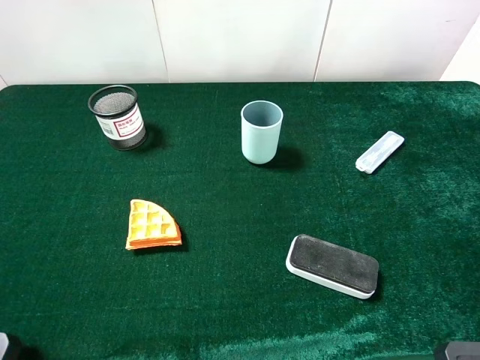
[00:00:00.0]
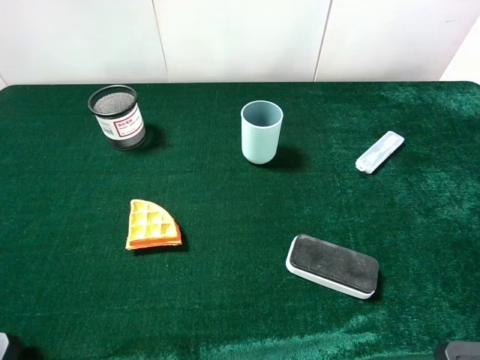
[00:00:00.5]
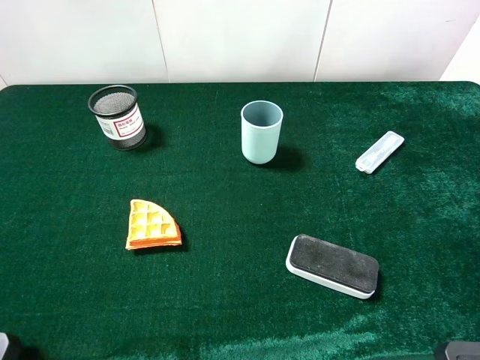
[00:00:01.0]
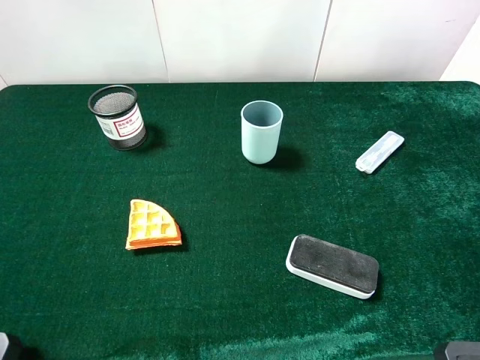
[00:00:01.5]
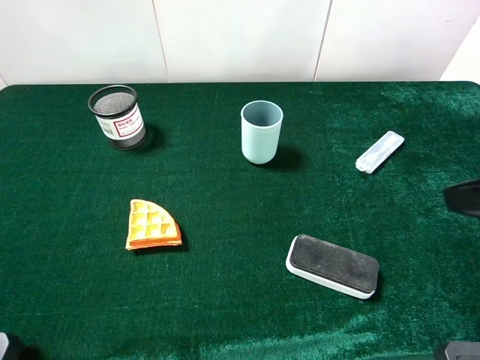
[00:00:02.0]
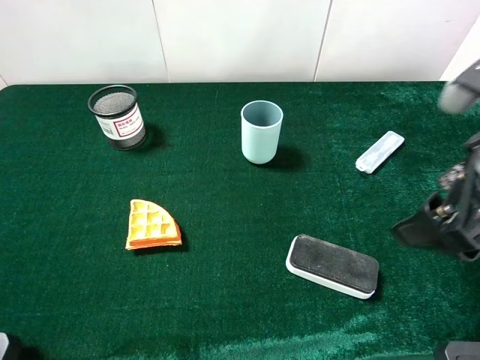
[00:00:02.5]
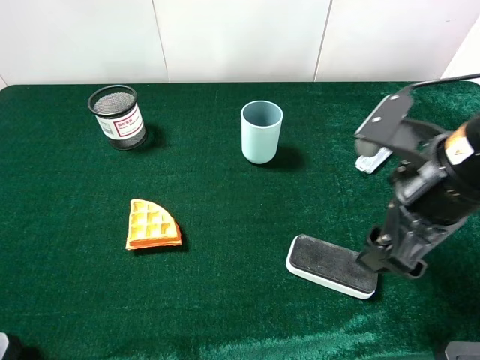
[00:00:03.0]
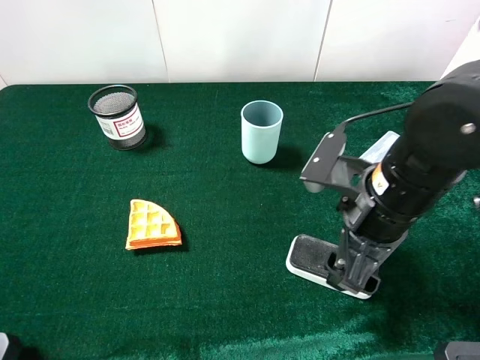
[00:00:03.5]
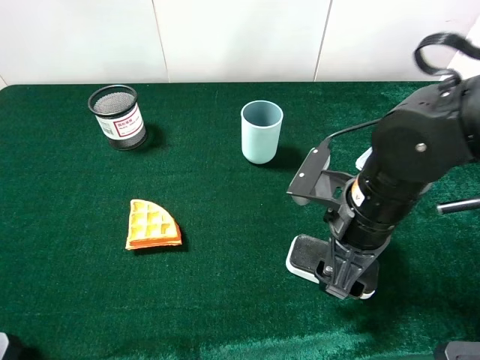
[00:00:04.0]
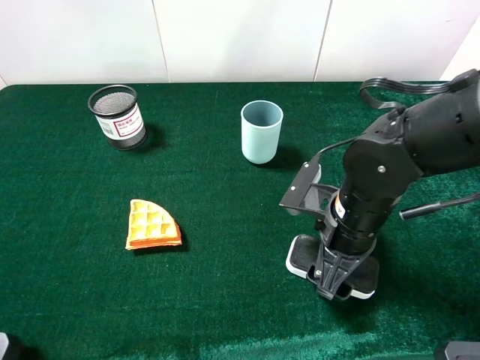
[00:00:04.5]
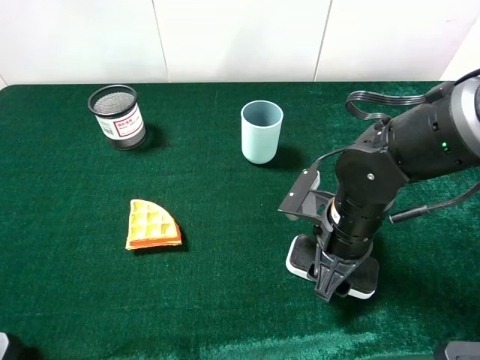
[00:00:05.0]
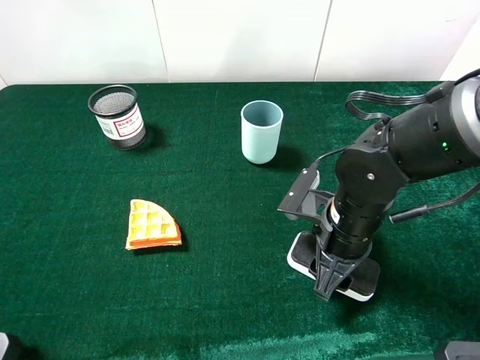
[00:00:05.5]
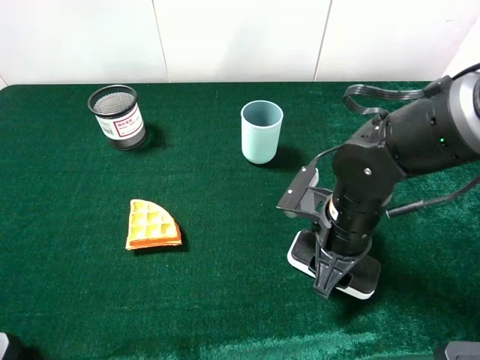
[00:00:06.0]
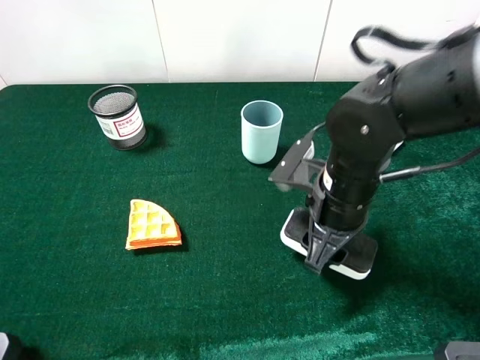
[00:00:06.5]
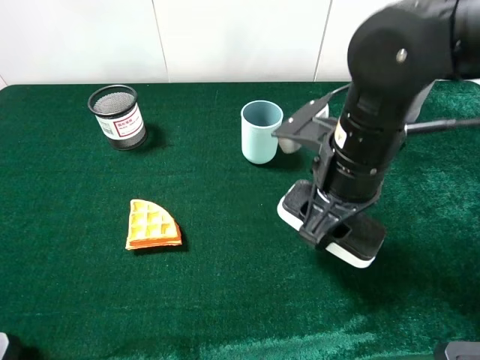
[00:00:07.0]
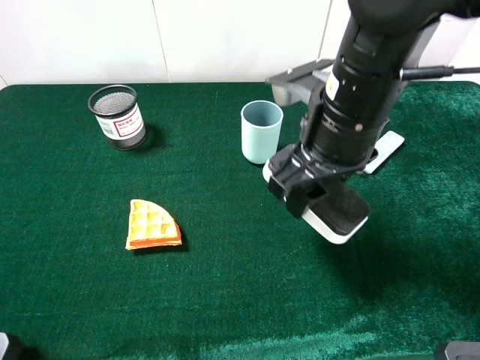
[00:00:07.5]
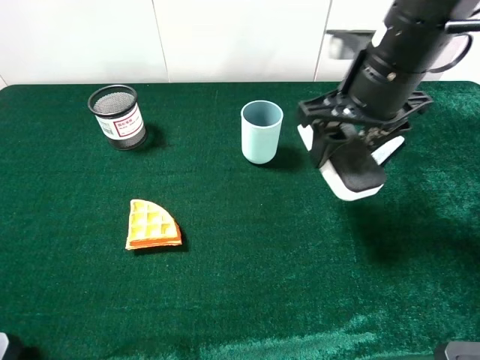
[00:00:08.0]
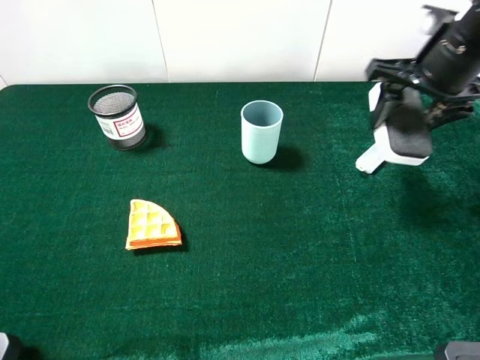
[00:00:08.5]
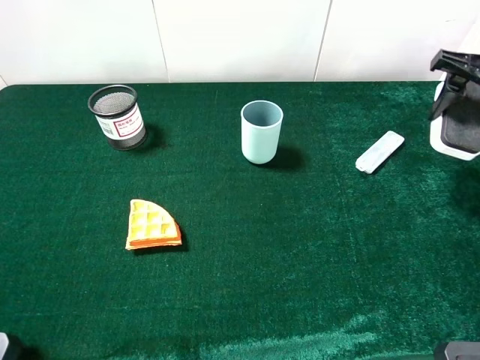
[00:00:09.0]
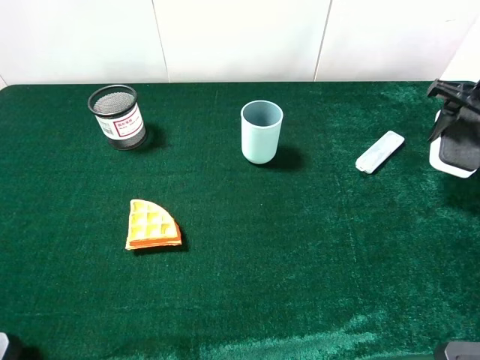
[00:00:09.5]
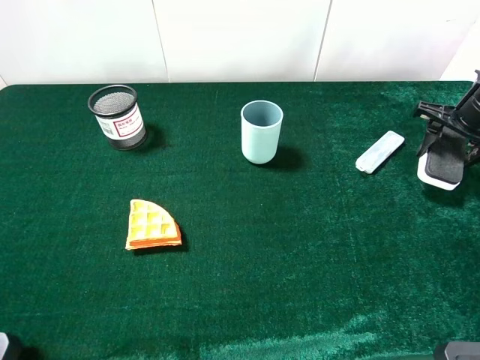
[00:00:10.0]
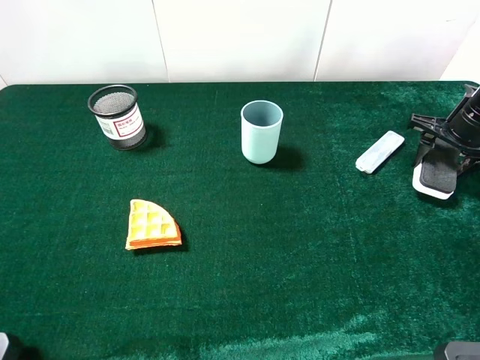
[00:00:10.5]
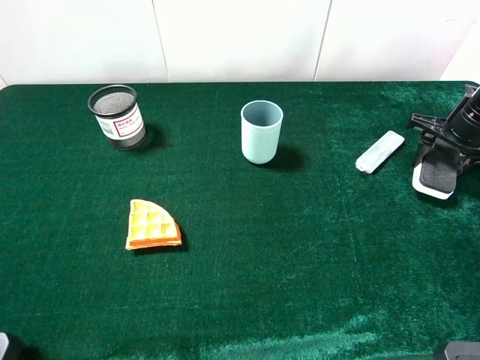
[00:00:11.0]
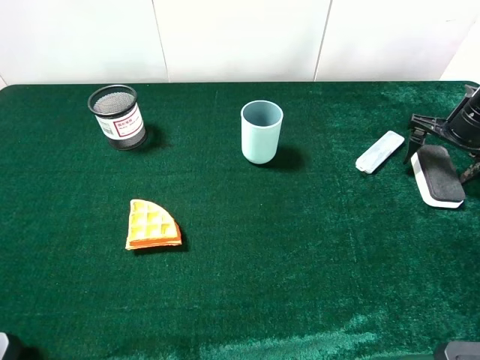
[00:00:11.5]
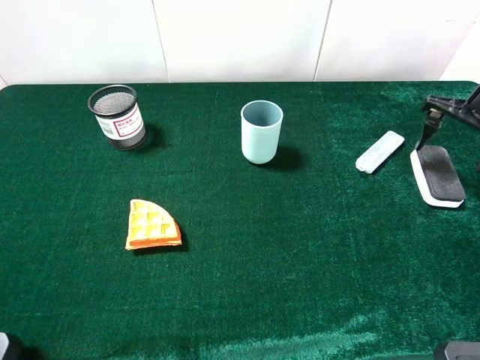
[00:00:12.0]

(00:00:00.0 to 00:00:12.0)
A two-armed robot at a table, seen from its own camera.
Task of the whole recording: the gripper move the object.
Step, 00:00:00.0 - 00:00:06.0: Grasp the white blackboard earser with the right gripper.
Step, 00:00:06.5 - 00:00:12.0: Place the white blackboard earser on the table with the right gripper.
00:00:02.0 - 00:00:04.0: The right gripper moves downward and to the left, some 20 cm.
00:00:04.0 - 00:00:06.0: The right gripper closes.
00:00:06.0 - 00:00:08.0: The right gripper shifts about 15 cm upward and forward.
00:00:08.0 - 00:00:10.0: The right gripper goes roughly 25 cm to the right, downward and forward.
00:00:10.0 - 00:00:12.0: The right gripper opens.

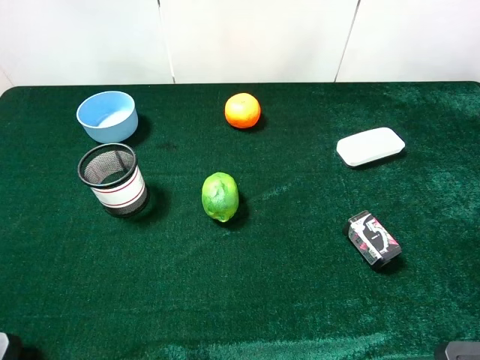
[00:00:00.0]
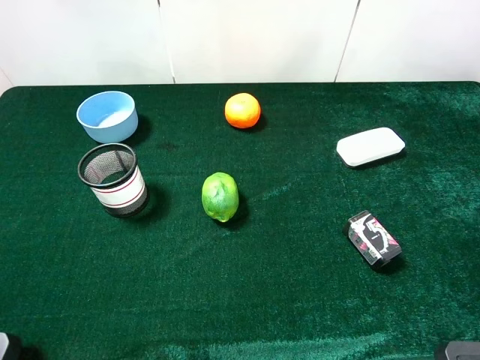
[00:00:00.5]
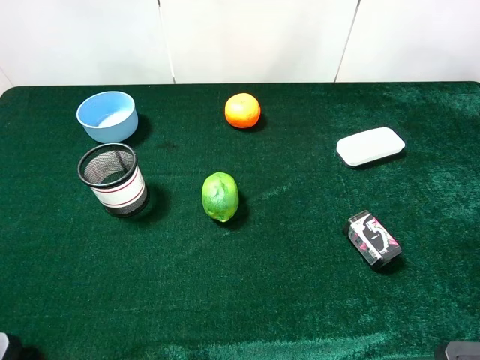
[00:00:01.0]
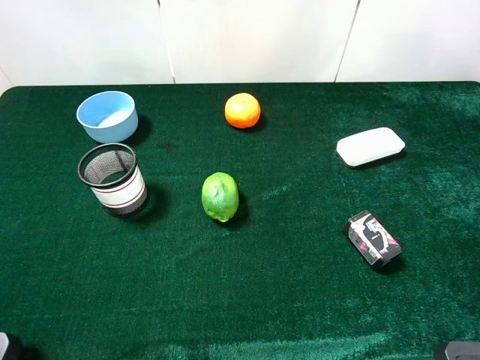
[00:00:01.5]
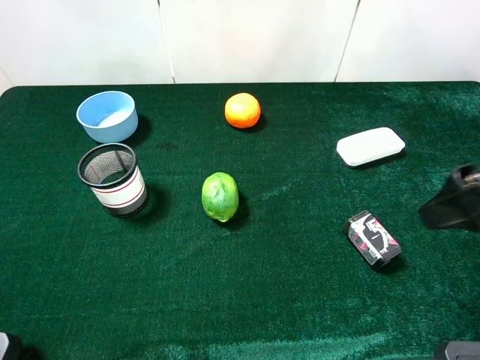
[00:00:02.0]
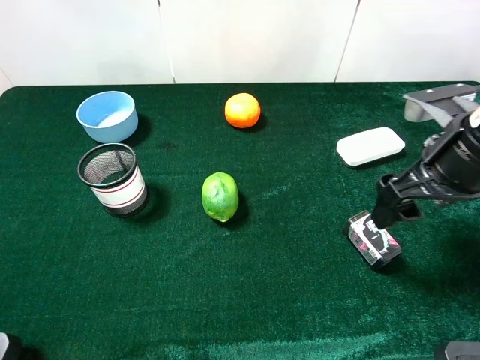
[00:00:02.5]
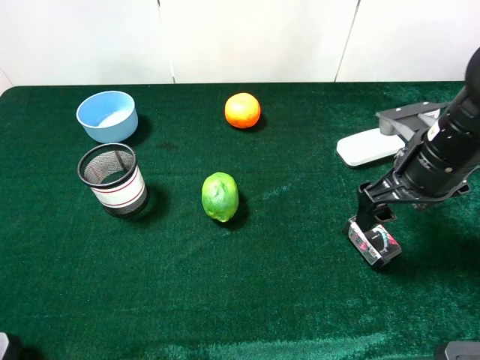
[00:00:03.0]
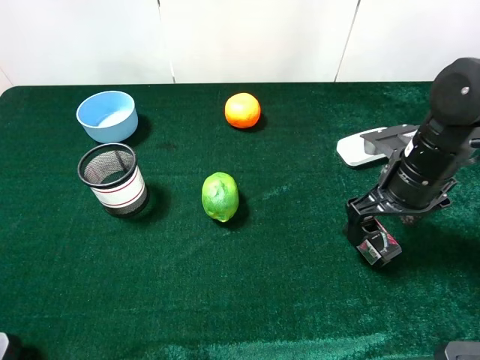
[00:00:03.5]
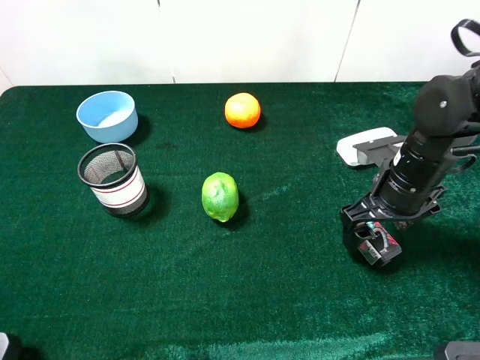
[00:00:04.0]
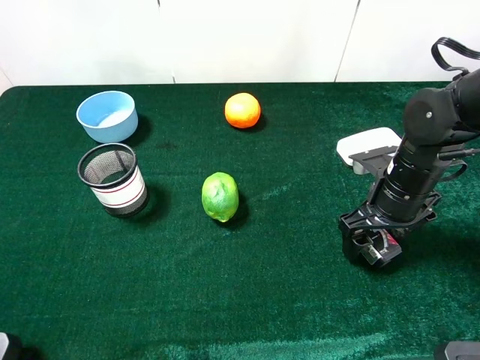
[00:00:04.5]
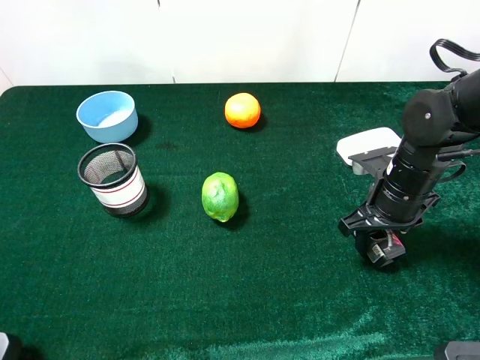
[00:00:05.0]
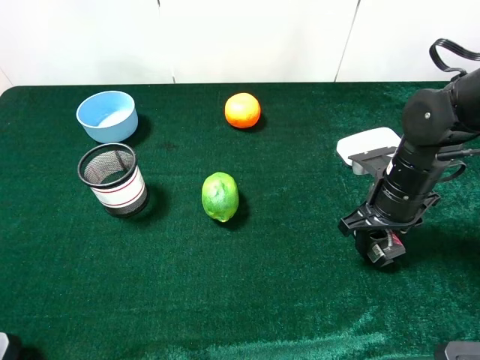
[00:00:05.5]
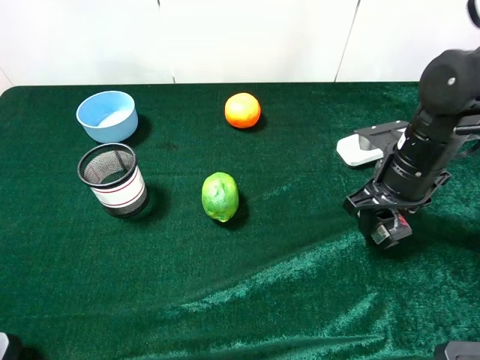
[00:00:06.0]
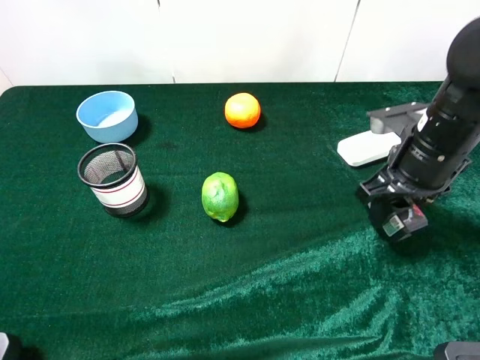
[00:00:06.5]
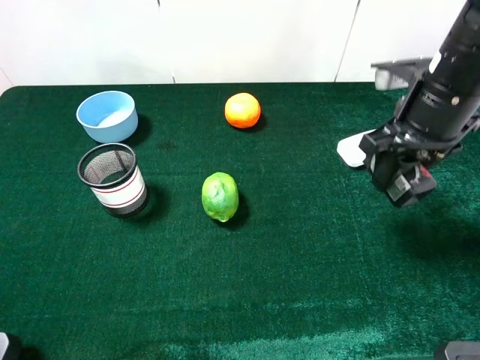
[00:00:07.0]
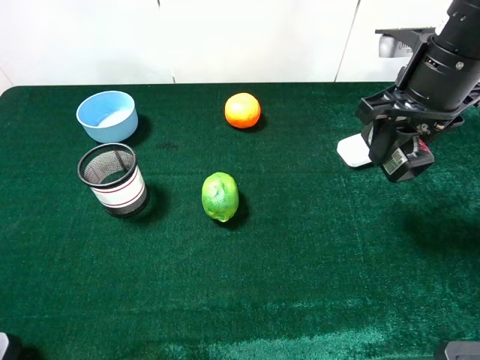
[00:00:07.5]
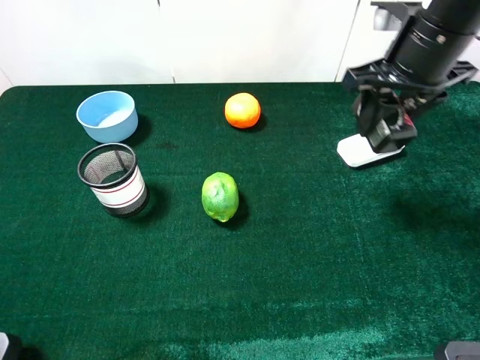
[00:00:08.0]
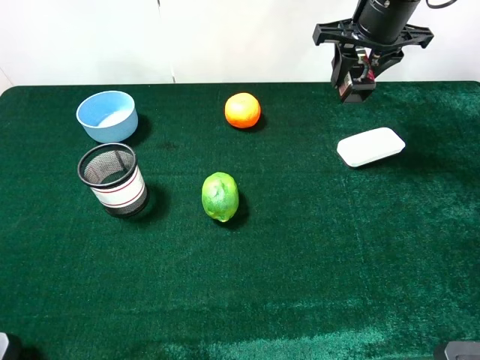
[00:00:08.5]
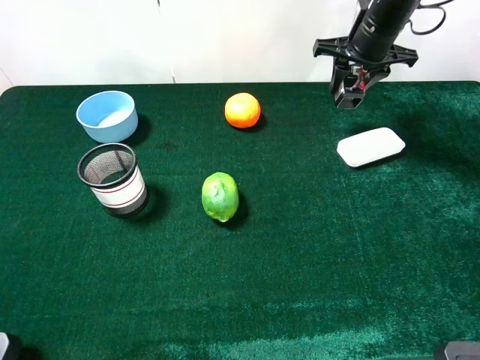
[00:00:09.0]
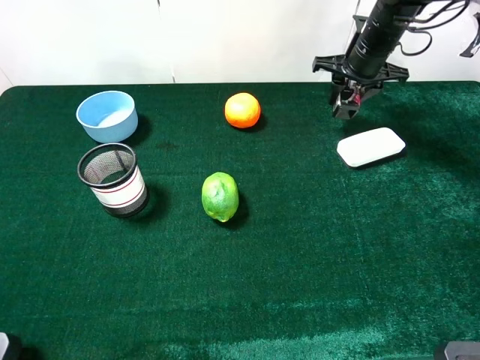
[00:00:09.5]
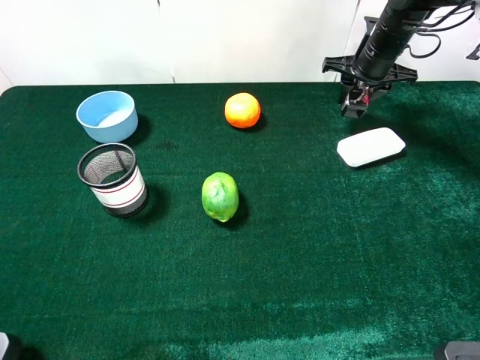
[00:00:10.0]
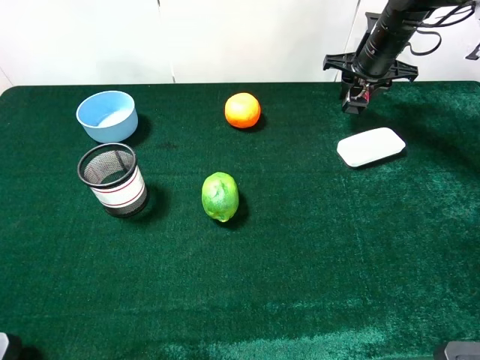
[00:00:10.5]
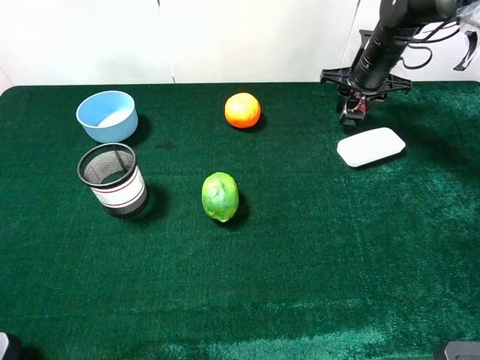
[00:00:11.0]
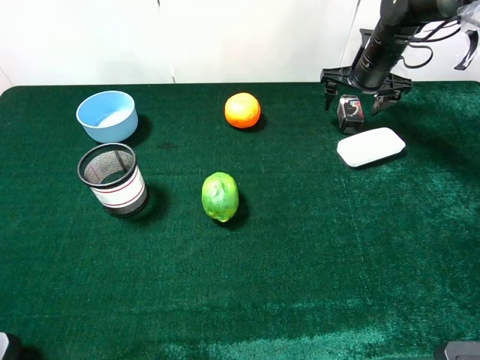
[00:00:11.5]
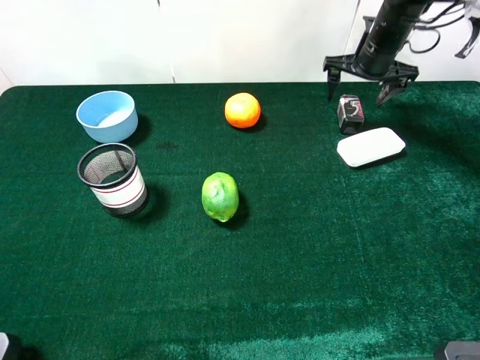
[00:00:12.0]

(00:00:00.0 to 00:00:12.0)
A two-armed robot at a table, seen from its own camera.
Task of the whole recording: the gripper move the object.
Step, 00:00:00.0 - 00:00:05.5: Grasp the sqaure chewing gun with the right gripper.
00:00:00.0 - 00:00:02.0: The right gripper heads forward, covering roughly 15 cm.
00:00:02.0 - 00:00:04.0: The right gripper travels downward and forward by roughly 20 cm.
00:00:04.0 - 00:00:06.0: The right gripper closes.
00:00:06.0 - 00:00:08.0: The right gripper goes about 15 cm upward and forward.
00:00:08.0 - 00:00:10.0: The right gripper travels forward and downward by roughly 20 cm.
00:00:10.0 - 00:00:12.0: The right gripper opens.

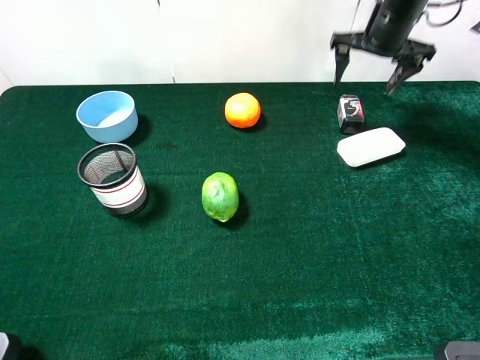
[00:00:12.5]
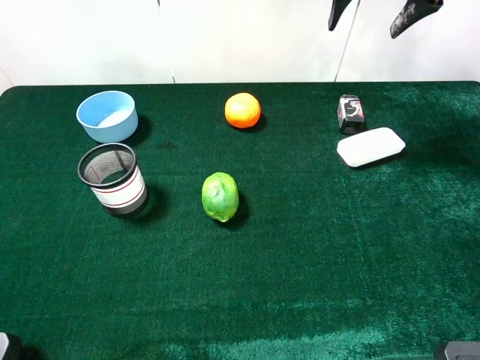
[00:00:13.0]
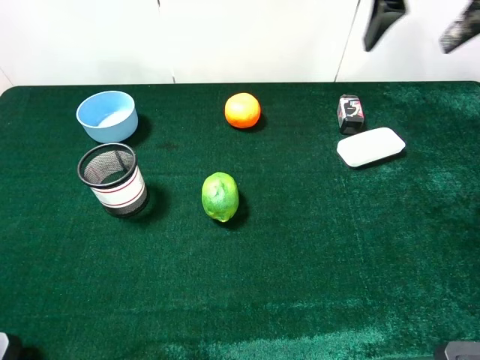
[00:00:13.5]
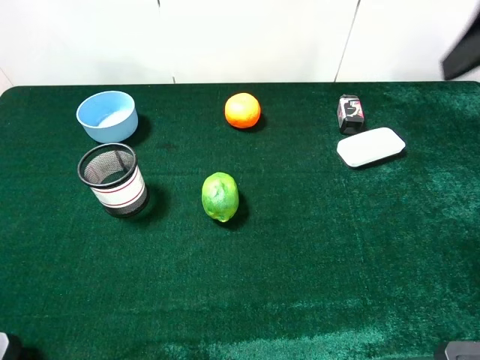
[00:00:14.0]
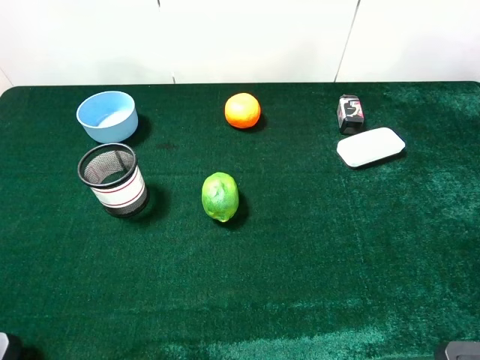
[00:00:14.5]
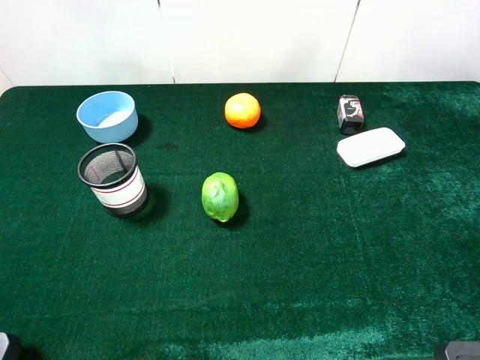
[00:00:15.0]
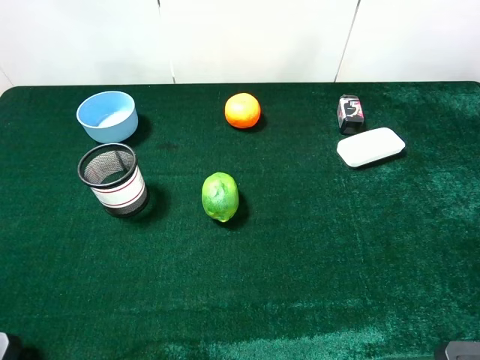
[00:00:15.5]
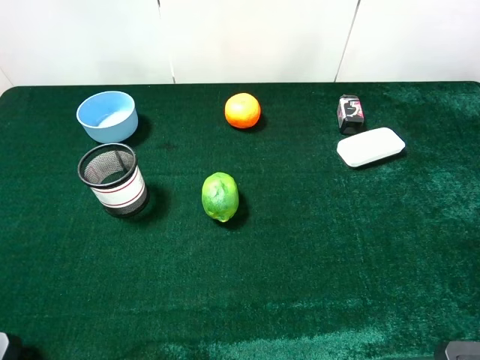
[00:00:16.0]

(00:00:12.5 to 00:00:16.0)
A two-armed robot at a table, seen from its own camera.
Task of the whole recording: the gripper move the object.
00:00:12.5 - 00:00:14.5: The right gripper heads backward, covering about 40 cm.
